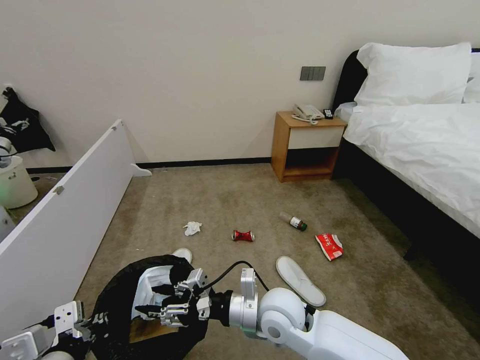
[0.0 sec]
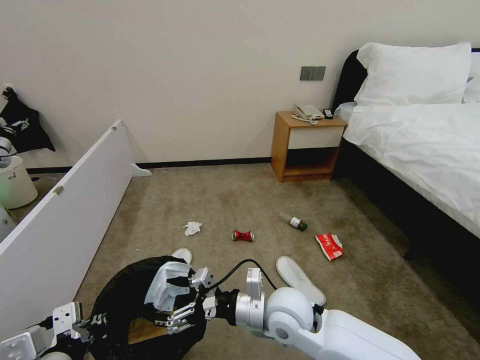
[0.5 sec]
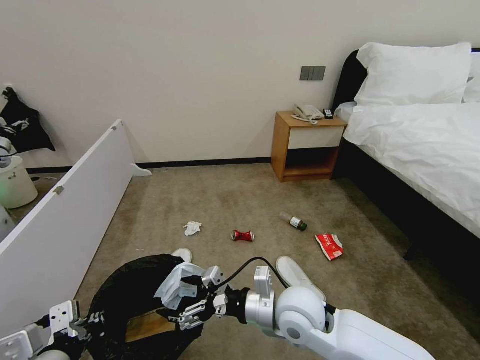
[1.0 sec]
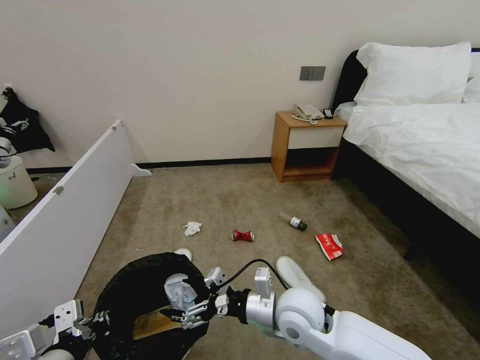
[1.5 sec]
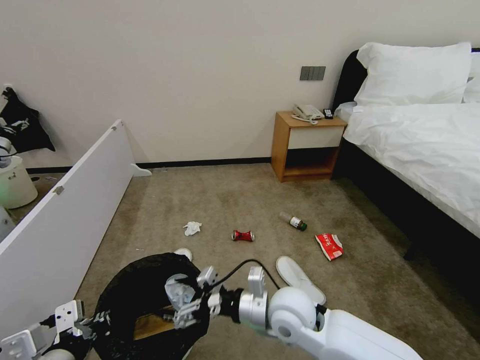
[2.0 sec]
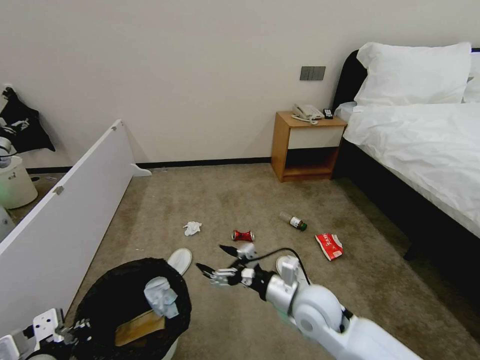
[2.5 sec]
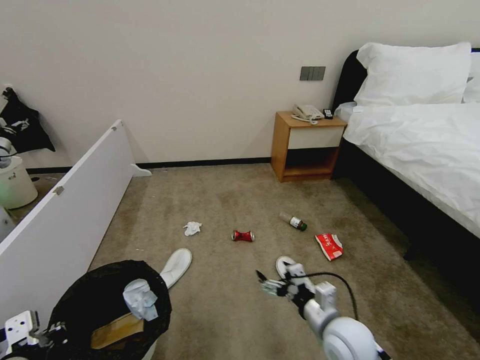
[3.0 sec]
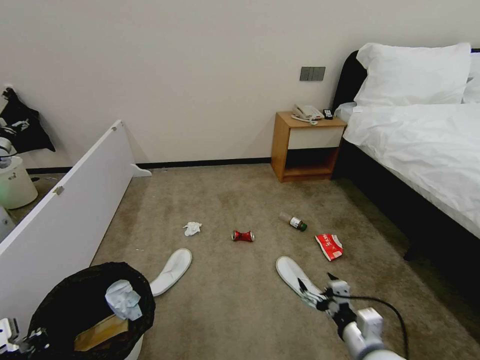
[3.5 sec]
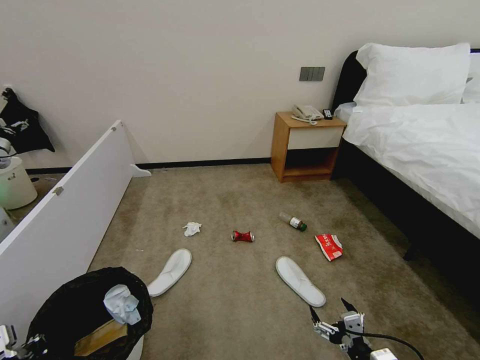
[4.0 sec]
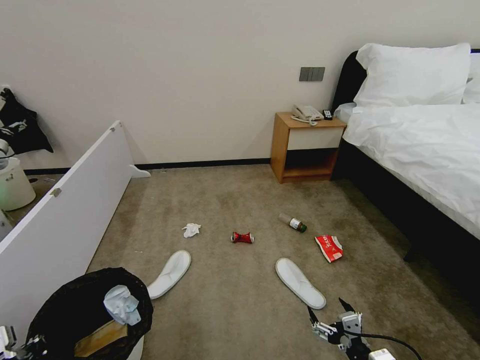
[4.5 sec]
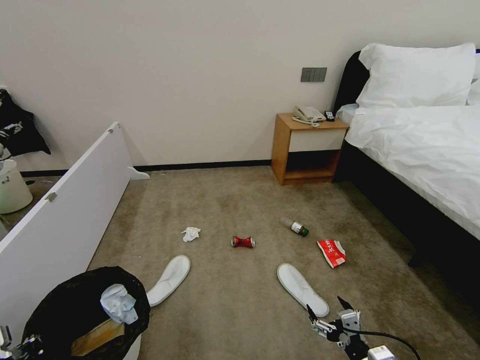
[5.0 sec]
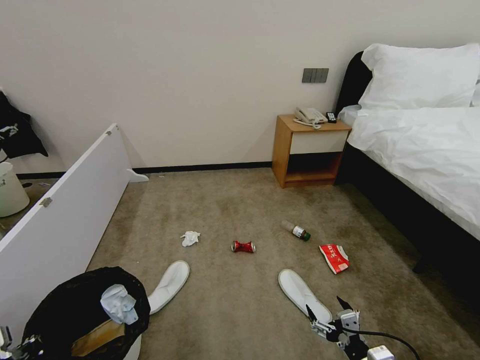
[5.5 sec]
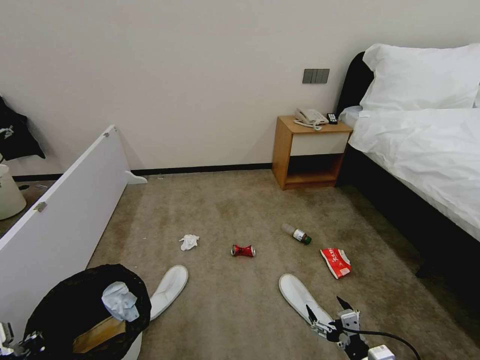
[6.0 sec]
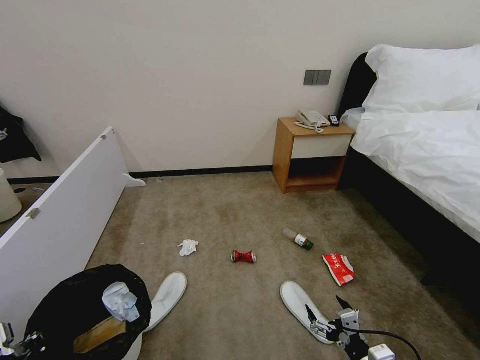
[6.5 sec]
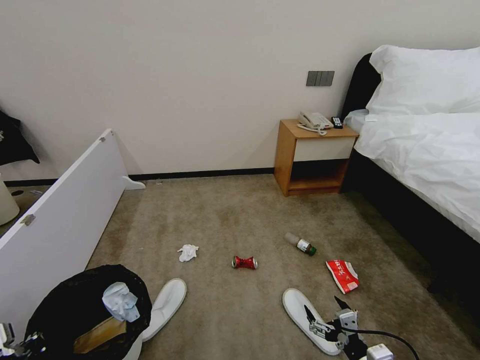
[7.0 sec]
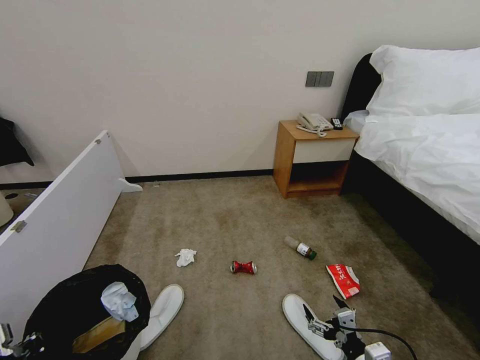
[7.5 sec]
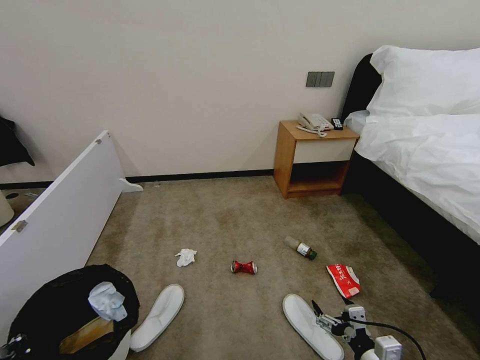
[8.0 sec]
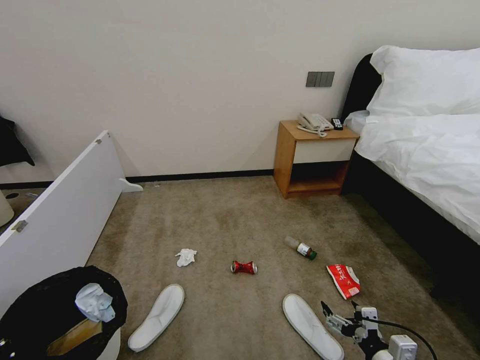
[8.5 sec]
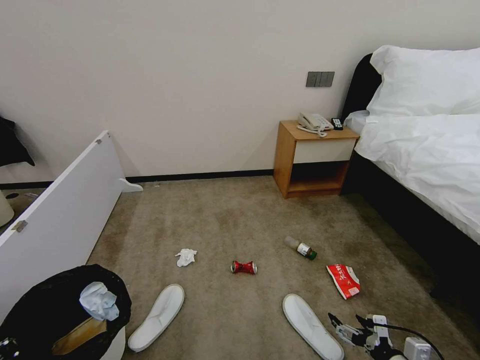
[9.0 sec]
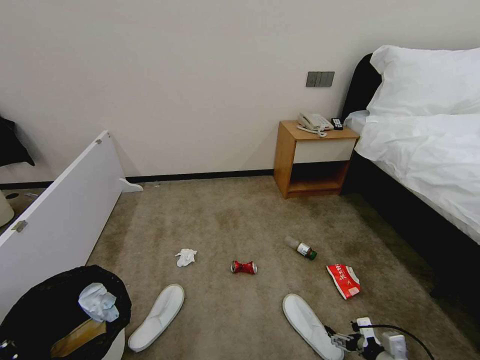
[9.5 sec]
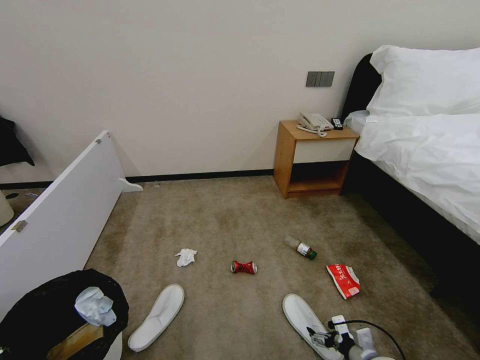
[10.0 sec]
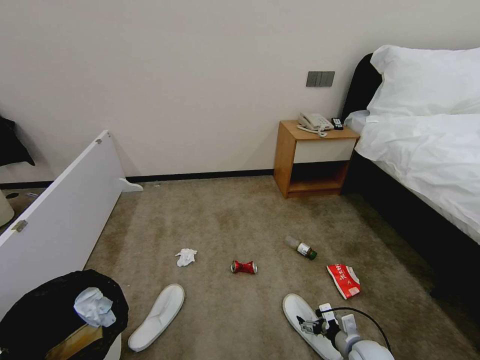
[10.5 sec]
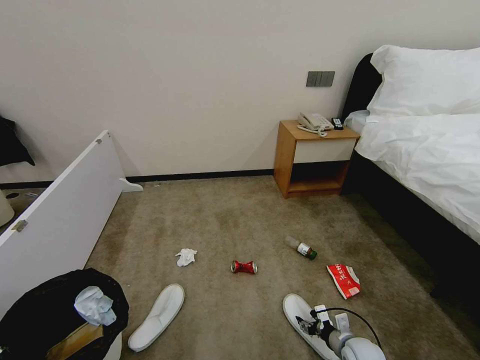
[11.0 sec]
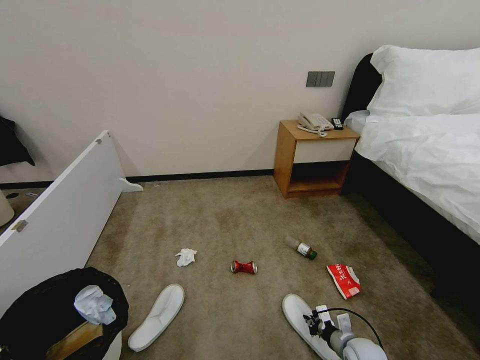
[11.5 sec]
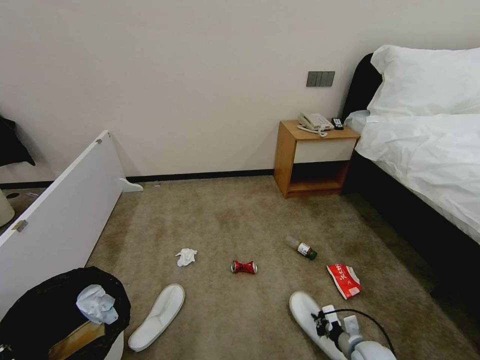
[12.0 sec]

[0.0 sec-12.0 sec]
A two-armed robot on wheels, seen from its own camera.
Task of the whole recording: Pick up the trash bin, then pick up the garbage from the floor and place it into the trash bin.
0.0 sec to 2.0 sec: The right gripper opens its fingers.
2.0 sec to 4.0 sec: The left gripper is displaced to the left by roughly 10 cm. Meanwhile the right gripper travels to the right, backward and downward by about 25 cm.
4.0 sec to 6.0 sec: The two grippers keep their place.
6.0 sec to 8.0 sec: The grippers stay close to where they were, moving slightly.
8.0 sec to 10.0 sec: The right gripper moves downward and forward, about 10 cm.
10.0 sec to 12.0 sec: The right gripper changes place by roughly 5 cm, and closes up.

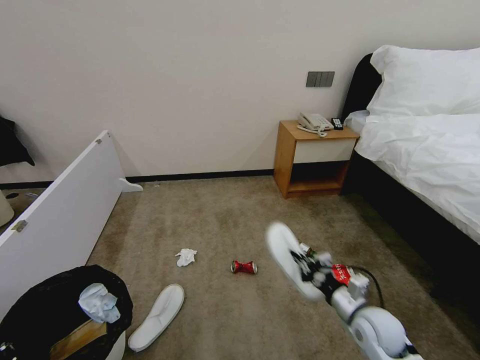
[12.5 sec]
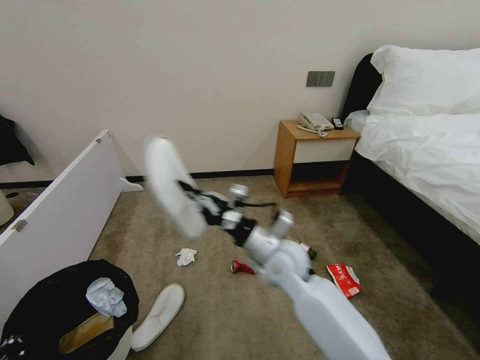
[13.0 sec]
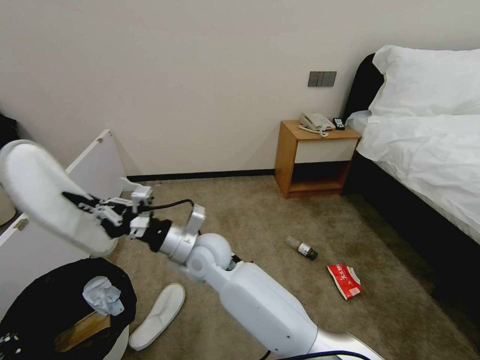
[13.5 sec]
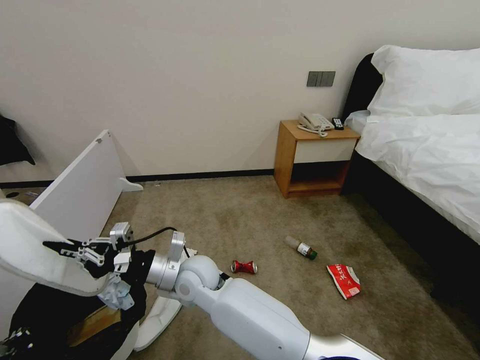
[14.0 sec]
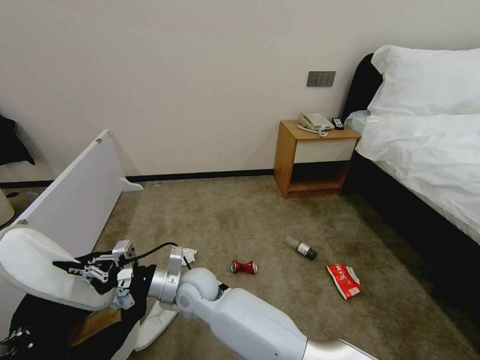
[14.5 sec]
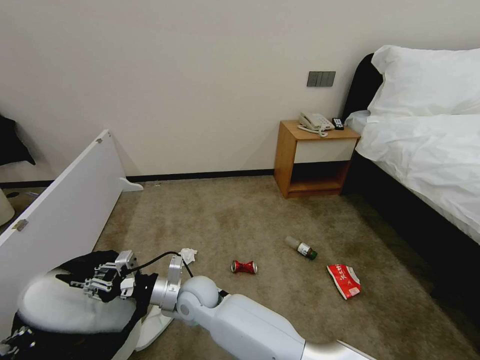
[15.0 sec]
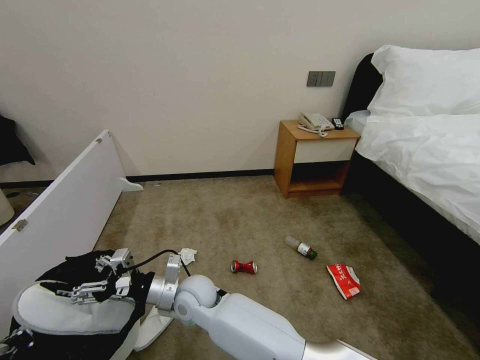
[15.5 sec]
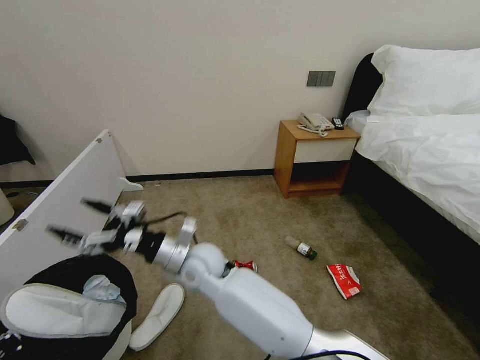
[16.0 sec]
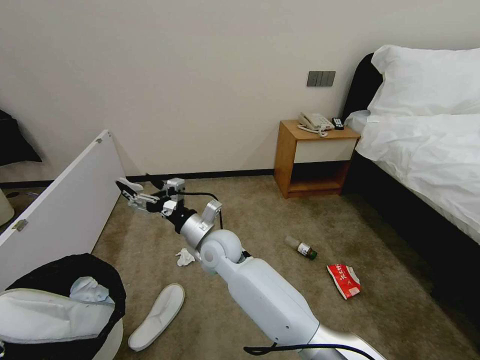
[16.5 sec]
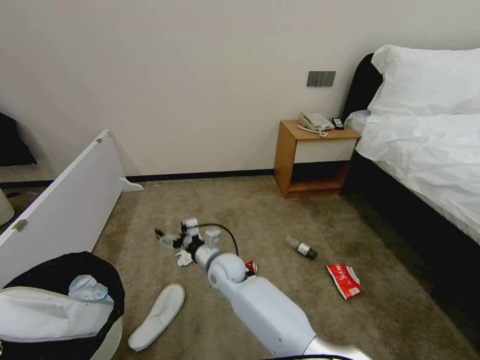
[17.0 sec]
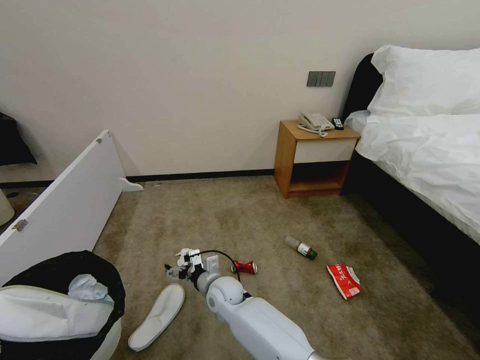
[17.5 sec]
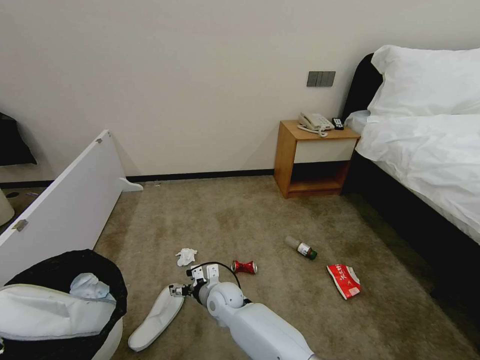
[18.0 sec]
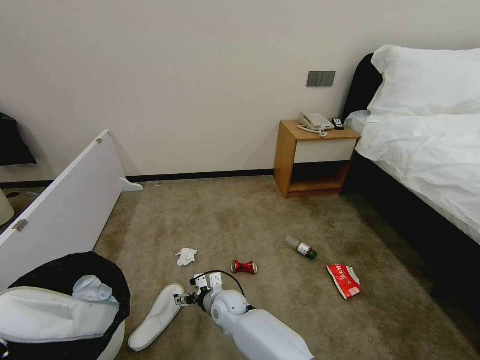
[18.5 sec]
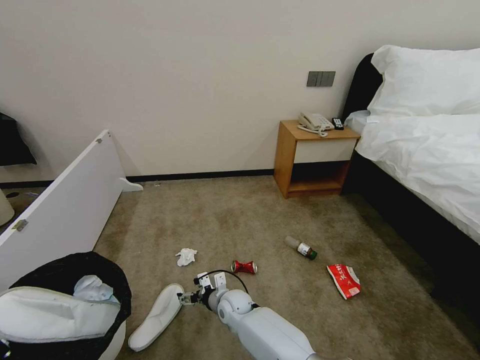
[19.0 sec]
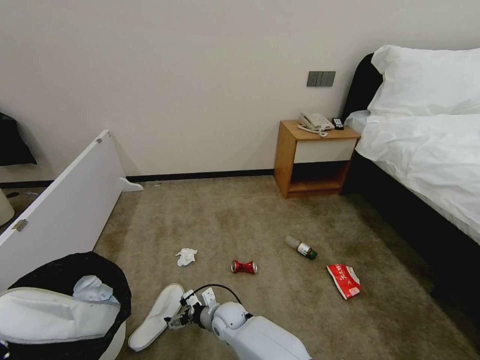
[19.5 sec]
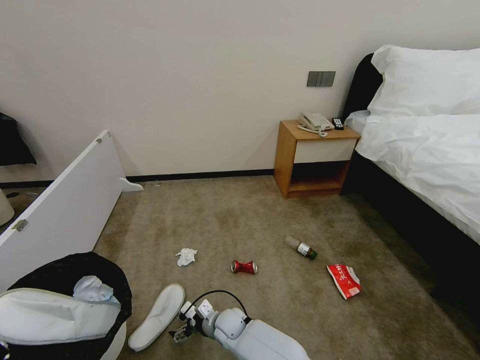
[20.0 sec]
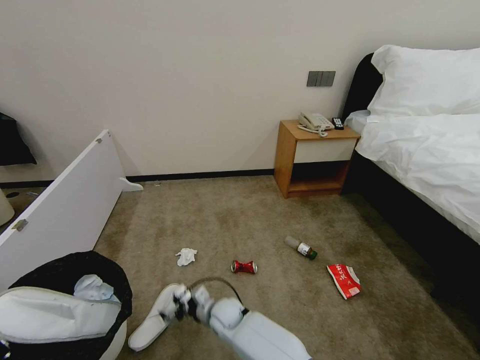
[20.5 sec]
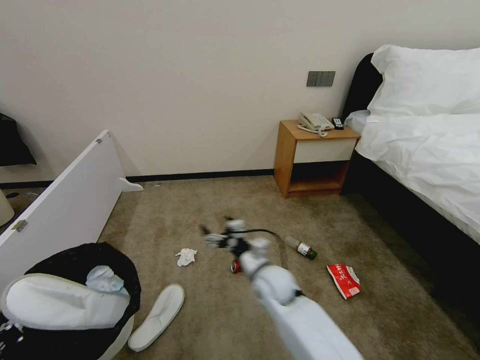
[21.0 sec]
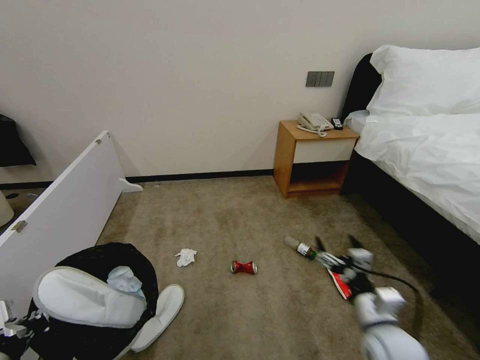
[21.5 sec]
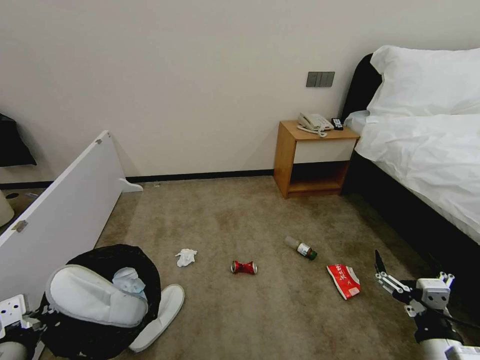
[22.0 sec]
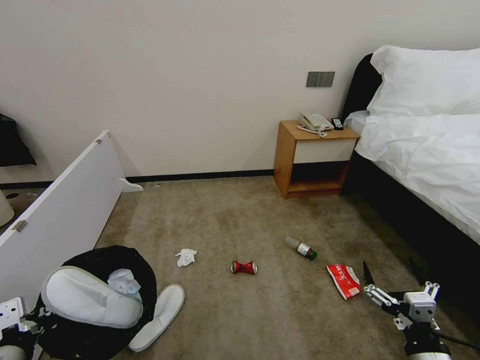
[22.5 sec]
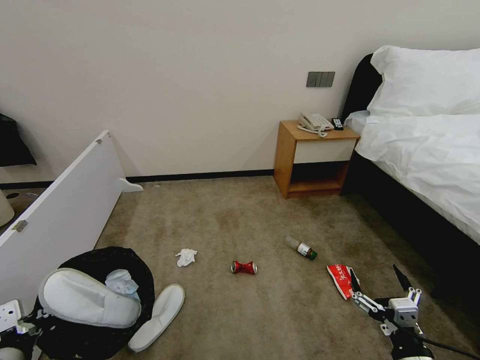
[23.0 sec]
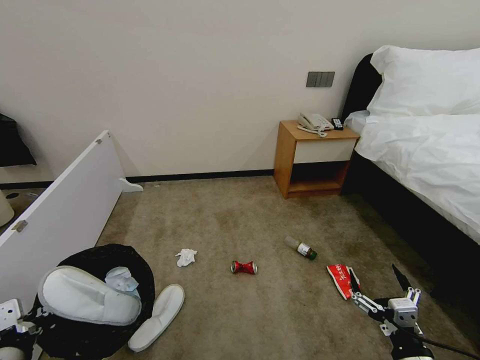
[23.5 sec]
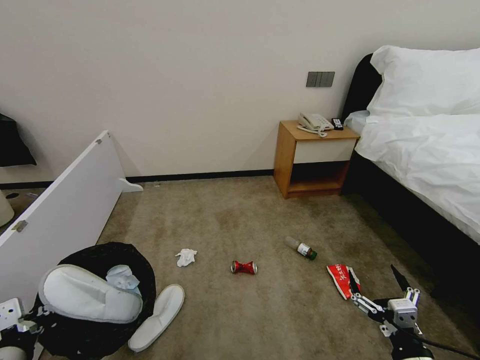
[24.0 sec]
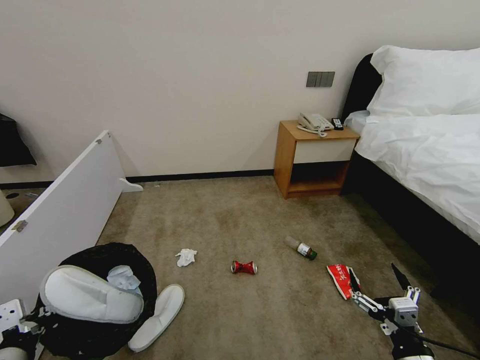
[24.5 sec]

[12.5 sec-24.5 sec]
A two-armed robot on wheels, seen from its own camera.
Task of the whole recording: Pick up the trash bin, then pick up the garbage from the floor and place it into the trash bin.
12.5 sec to 14.5 sec: The right gripper moves to the left, roughly 40 cm.
14.5 sec to 16.5 sec: The right gripper travels forward, upward and to the right by some 10 cm, and opens its fingers.
16.5 sec to 18.5 sec: The right gripper is displaced downward by about 20 cm.
20.5 sec to 22.5 sec: The left gripper is displaced forward by about 5 cm. Meanwhile the right gripper travels to the right, backward and upward by roughly 50 cm.
22.5 sec to 24.5 sec: The grippers make only small movements.

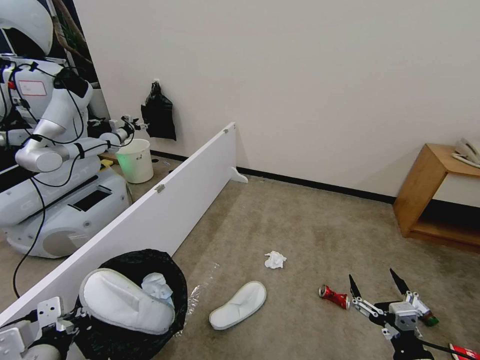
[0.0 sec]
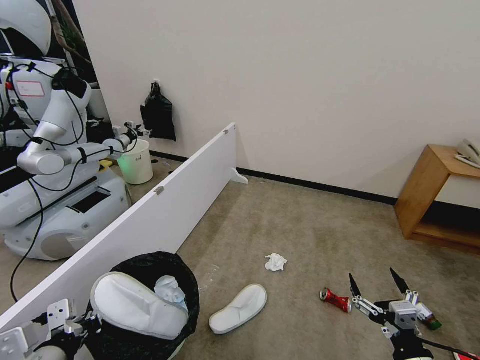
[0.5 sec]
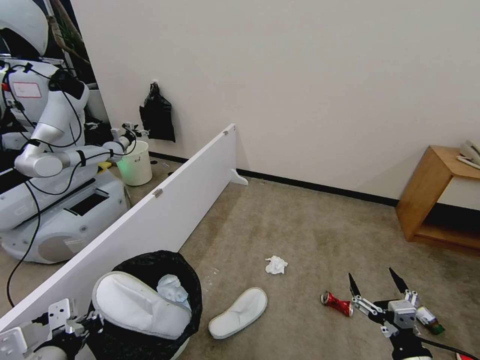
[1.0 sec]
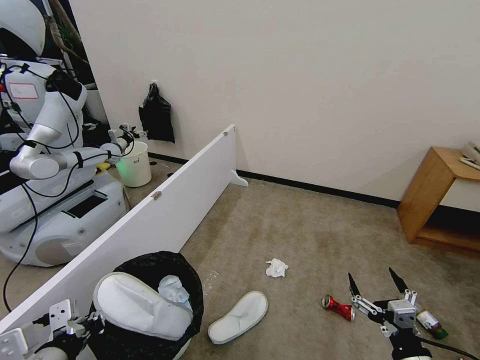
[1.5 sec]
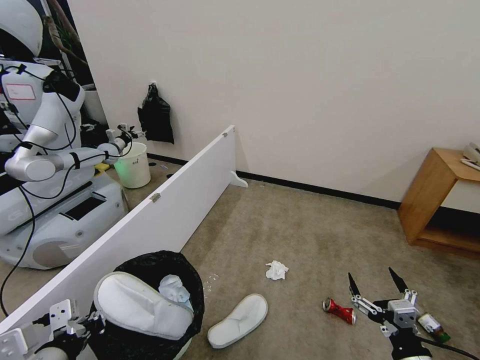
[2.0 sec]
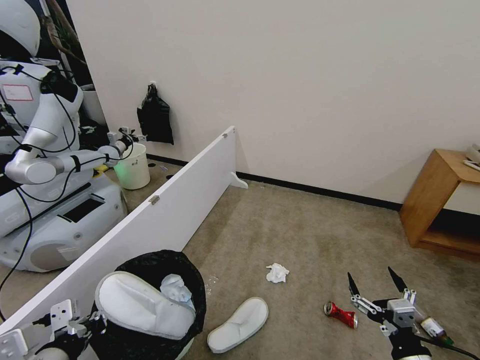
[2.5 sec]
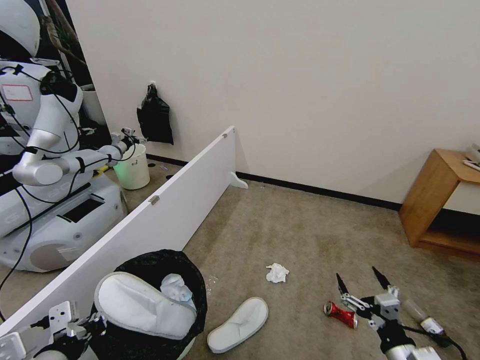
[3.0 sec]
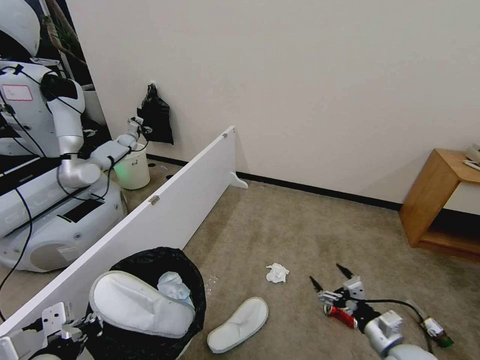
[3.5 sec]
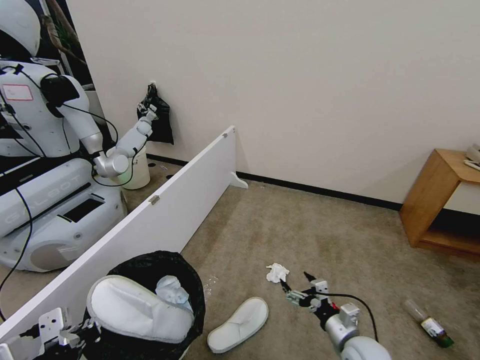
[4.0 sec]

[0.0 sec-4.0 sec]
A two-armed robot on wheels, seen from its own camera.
Task of the whole recording: Pick up the trash bin, then pick up the garbage from the floor and place it into the trash bin.
2.0 sec to 4.0 sec: The right gripper shifts about 15 cm forward, downward and to the left.
